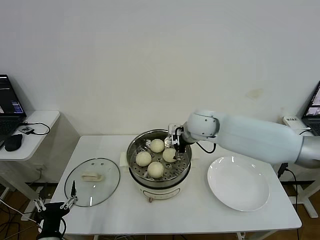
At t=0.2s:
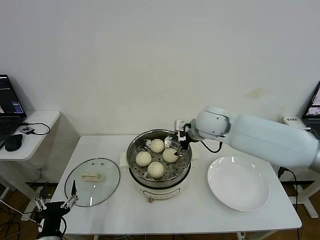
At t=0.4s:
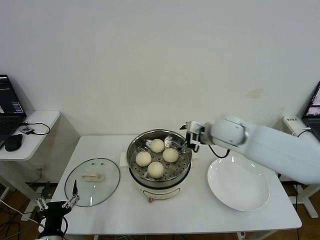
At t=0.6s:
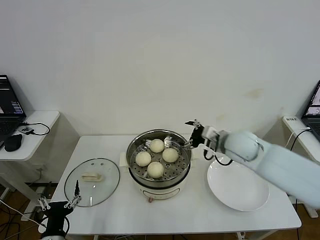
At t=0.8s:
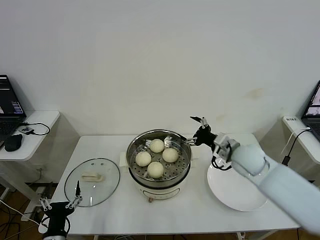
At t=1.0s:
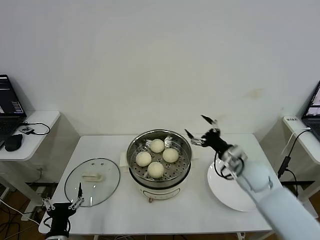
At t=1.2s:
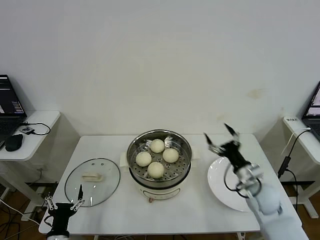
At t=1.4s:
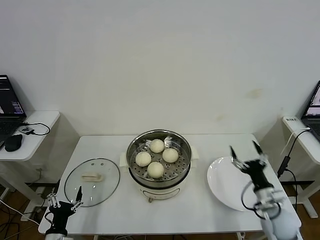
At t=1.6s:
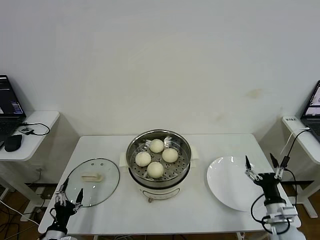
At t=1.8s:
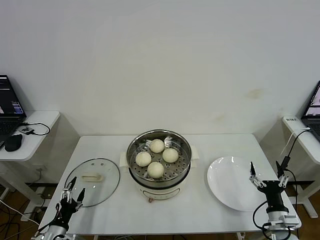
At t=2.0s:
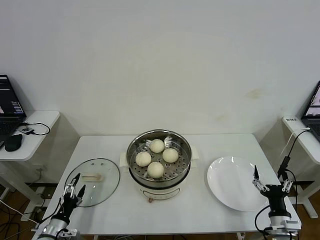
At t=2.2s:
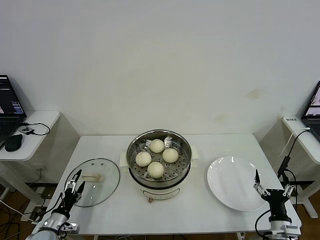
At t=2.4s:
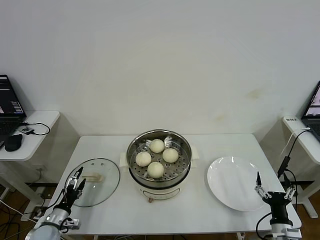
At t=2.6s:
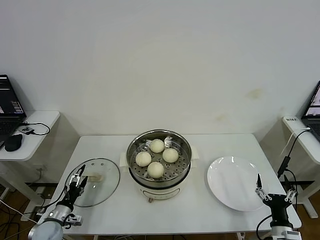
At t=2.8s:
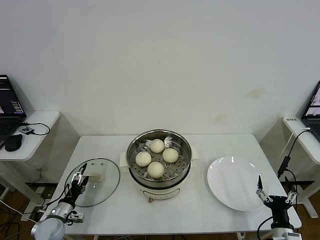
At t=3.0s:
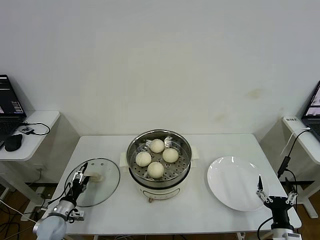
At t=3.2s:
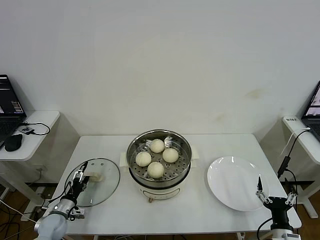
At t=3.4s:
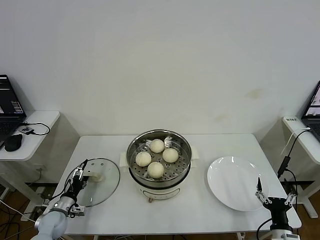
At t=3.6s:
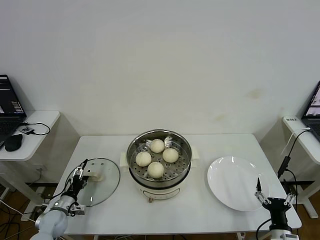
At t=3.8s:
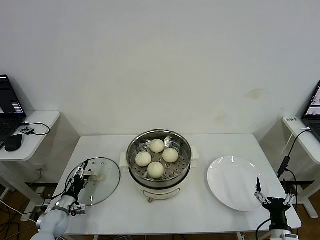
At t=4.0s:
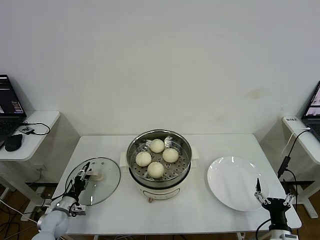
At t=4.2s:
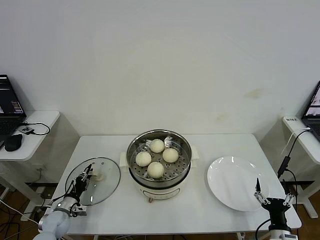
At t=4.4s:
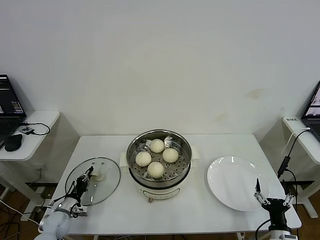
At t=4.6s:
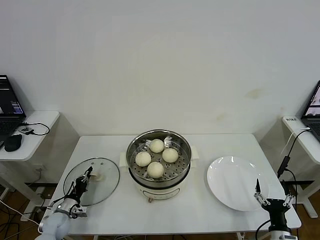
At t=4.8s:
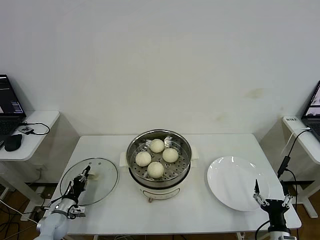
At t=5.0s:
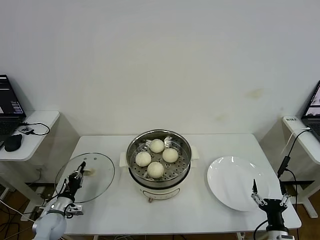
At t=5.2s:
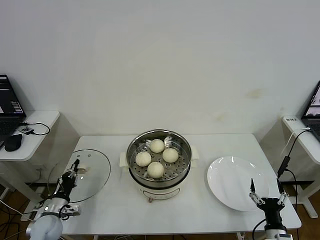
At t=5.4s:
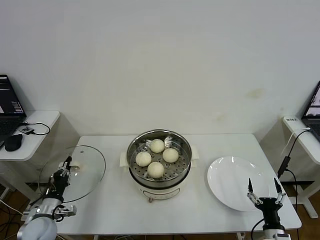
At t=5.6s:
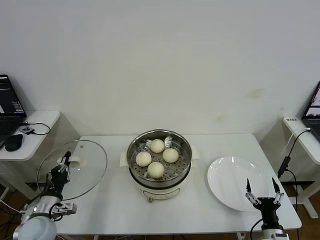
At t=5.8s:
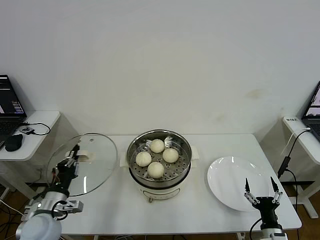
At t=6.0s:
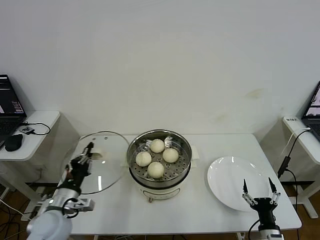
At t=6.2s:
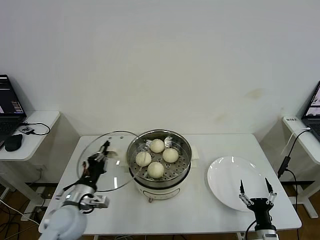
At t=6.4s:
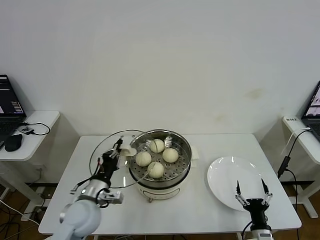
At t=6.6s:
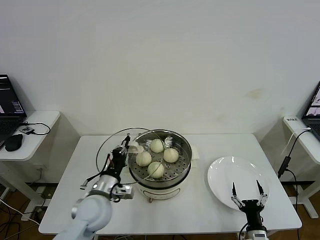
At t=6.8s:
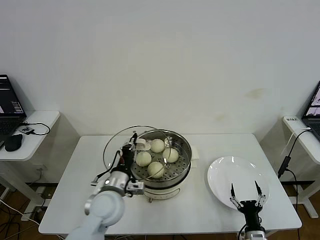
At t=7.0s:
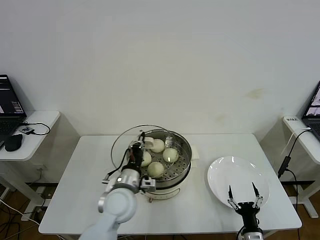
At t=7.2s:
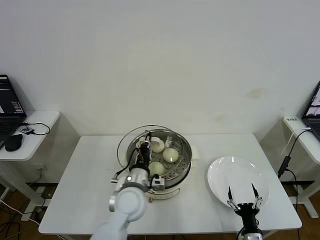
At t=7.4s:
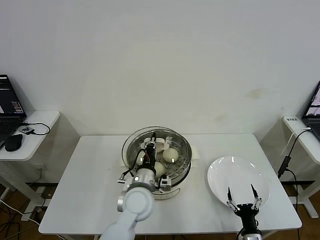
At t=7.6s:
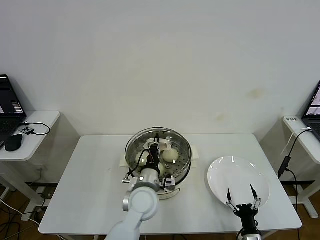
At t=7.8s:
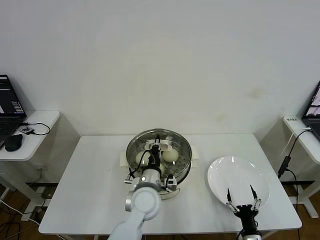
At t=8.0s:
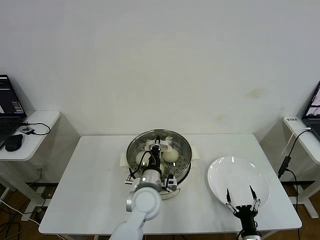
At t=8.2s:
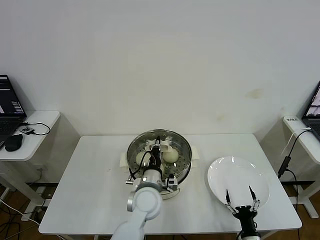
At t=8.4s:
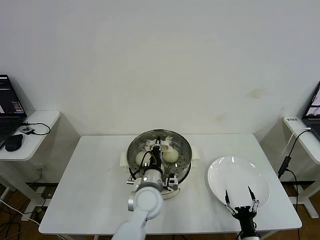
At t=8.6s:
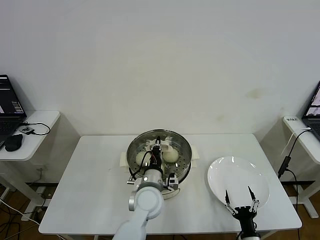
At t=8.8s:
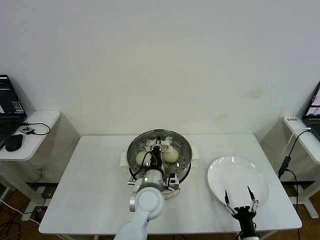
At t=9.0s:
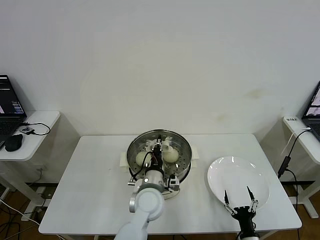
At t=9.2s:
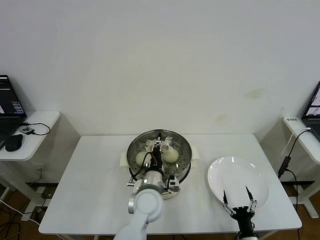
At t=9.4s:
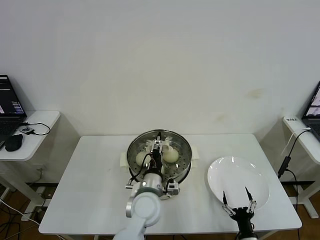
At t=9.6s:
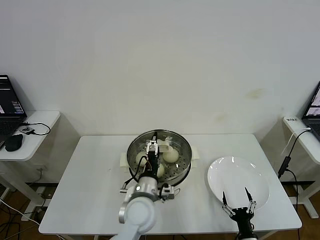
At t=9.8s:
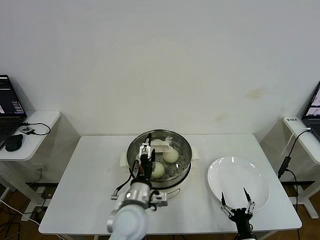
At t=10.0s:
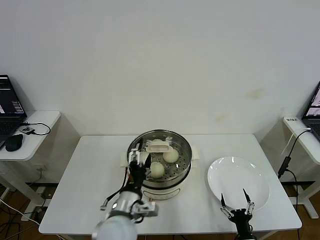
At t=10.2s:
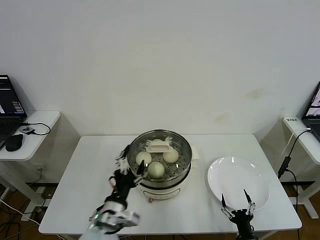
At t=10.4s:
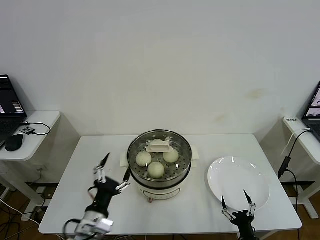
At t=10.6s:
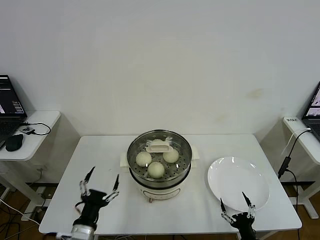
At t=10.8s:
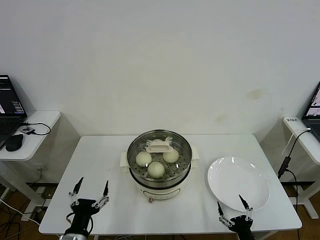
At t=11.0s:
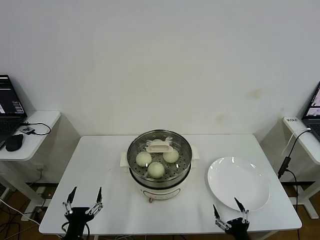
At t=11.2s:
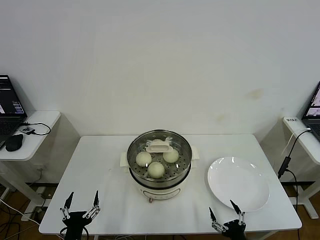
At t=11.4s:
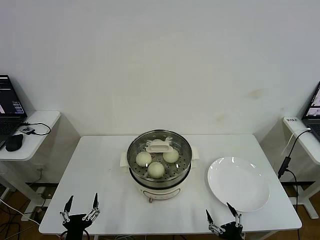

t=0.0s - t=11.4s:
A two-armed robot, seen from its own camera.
Step, t=0.2s - t=4.6s: Grasp the pot lid with left gripper.
Step, t=4.8s - t=9.6s: Place the pot lid on the steamer with left gripper.
t=0.0s - t=1.4s: The right gripper heads to the right, backward and downward, covering roughly 40 cm. Meanwhile the left gripper shifts about 5 cm downward.
t=1.4s - t=2.8s: The right gripper goes some 15 cm backward and downward. The left gripper shifts approximately 15 cm forward and to the left.
t=2.8s - t=4.2s: The left gripper closes its fingers.
t=4.2s - t=5.6s: The left gripper travels upward and backward by approximately 15 cm, and closes up.
t=5.6s - t=7.2s: The right gripper travels to the left by some 5 cm. The left gripper moves to the right, some 30 cm.
t=7.2s - t=8.6s: The left gripper shifts some 5 cm to the right.
t=8.6s - t=10.0s: The left gripper shifts approximately 10 cm backward and to the left, and opens its fingers.
t=10.0s - t=11.4s: The left gripper is displaced to the left, backward and downward by roughly 25 cm; the right gripper is displaced upward by approximately 5 cm.
